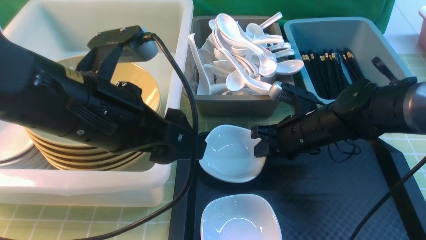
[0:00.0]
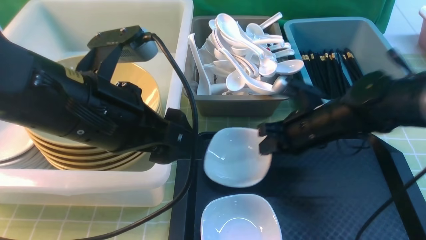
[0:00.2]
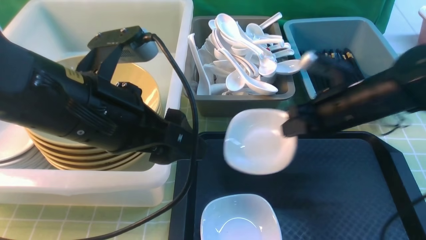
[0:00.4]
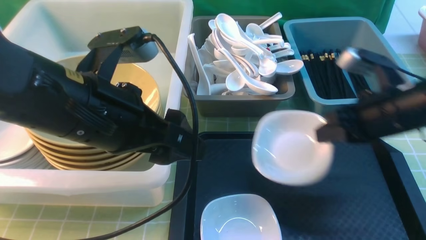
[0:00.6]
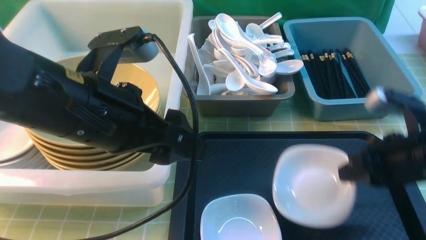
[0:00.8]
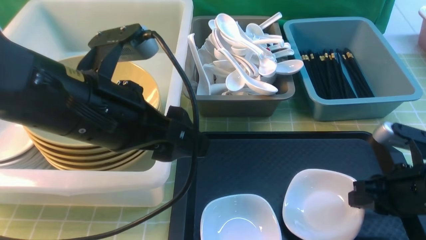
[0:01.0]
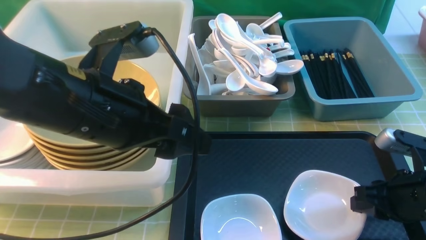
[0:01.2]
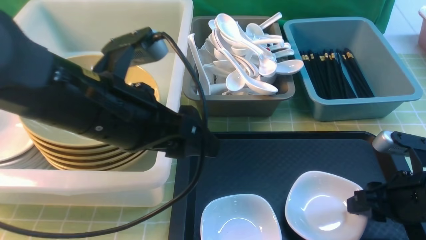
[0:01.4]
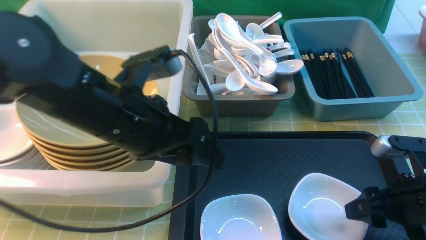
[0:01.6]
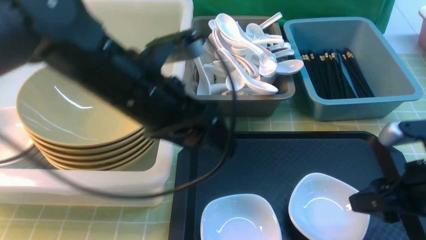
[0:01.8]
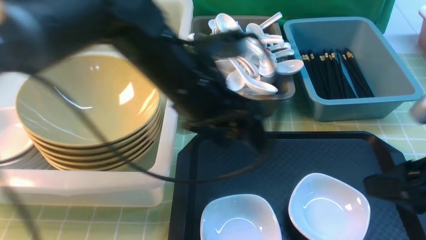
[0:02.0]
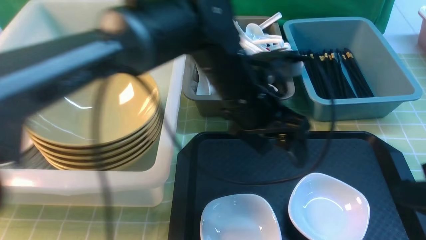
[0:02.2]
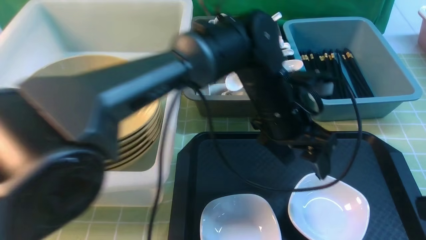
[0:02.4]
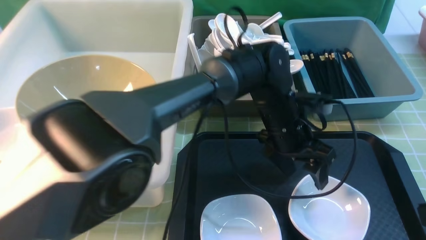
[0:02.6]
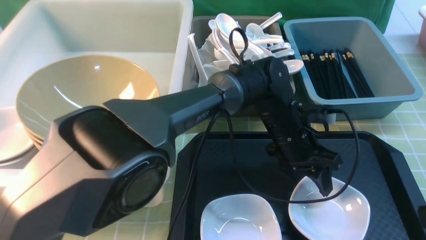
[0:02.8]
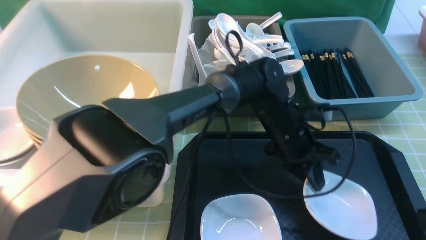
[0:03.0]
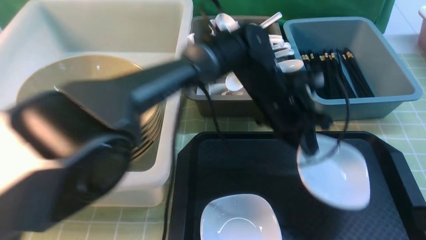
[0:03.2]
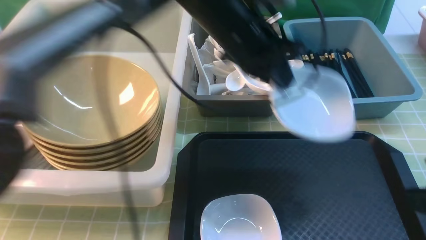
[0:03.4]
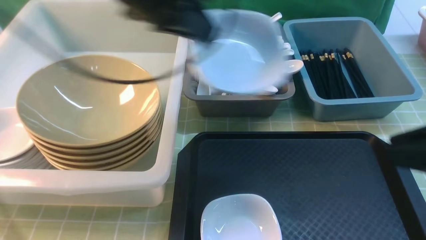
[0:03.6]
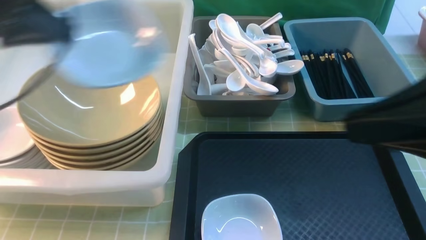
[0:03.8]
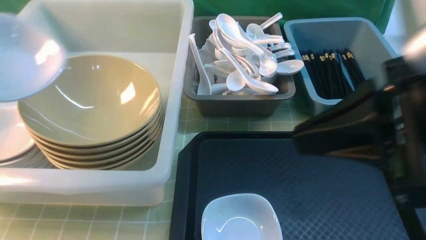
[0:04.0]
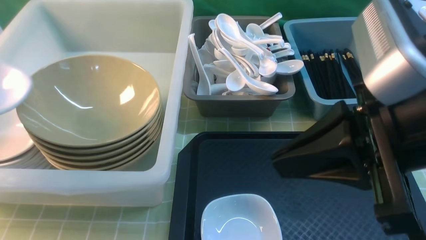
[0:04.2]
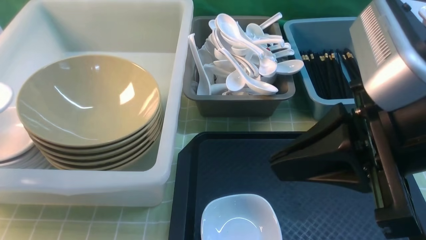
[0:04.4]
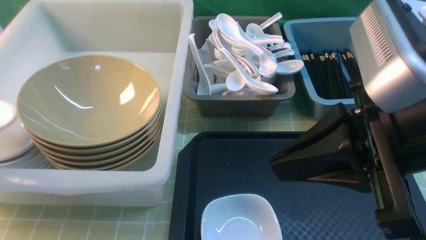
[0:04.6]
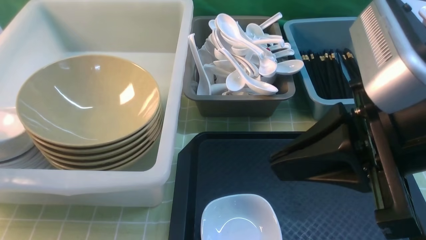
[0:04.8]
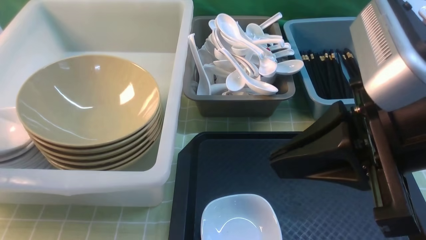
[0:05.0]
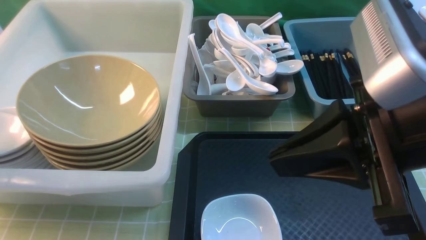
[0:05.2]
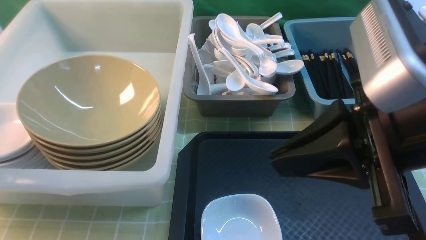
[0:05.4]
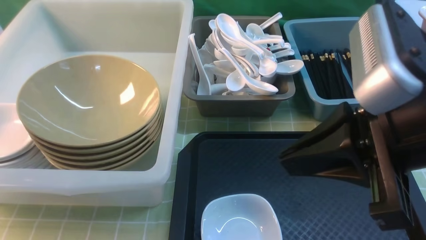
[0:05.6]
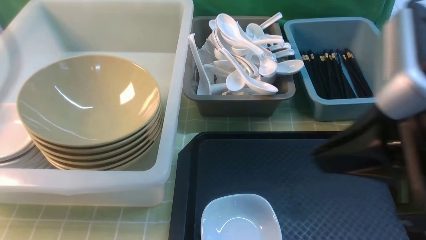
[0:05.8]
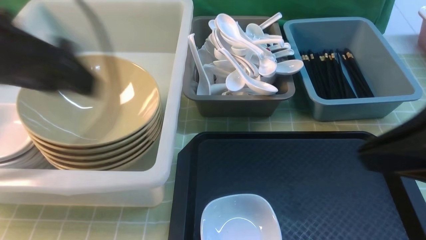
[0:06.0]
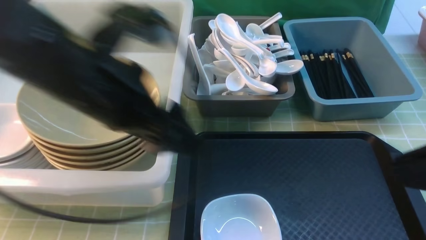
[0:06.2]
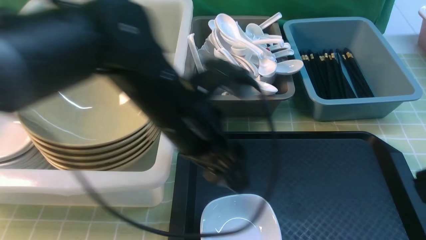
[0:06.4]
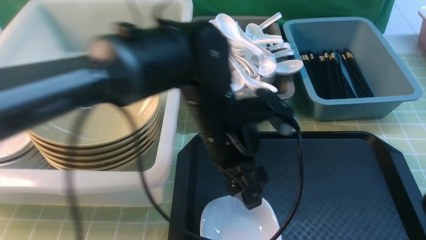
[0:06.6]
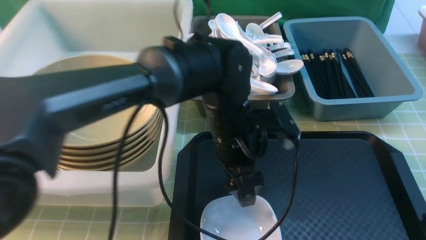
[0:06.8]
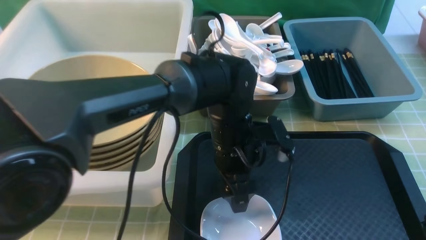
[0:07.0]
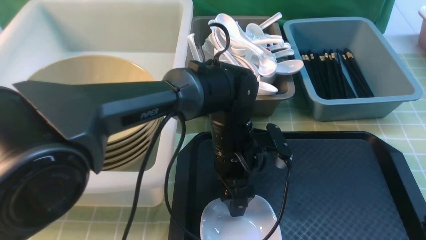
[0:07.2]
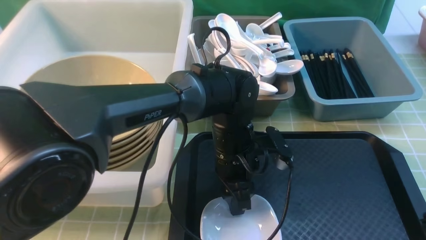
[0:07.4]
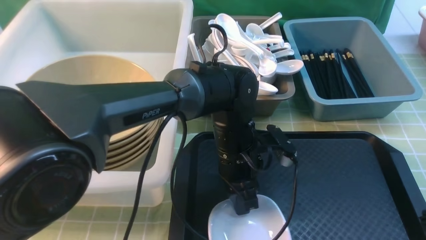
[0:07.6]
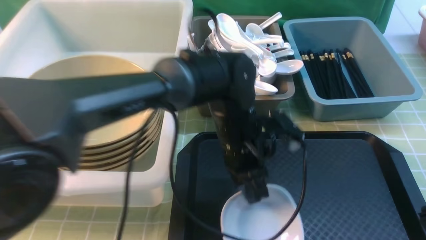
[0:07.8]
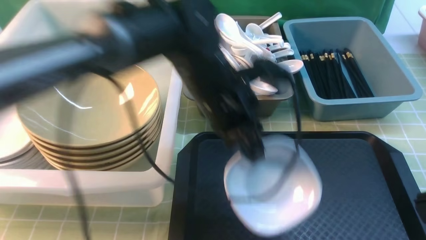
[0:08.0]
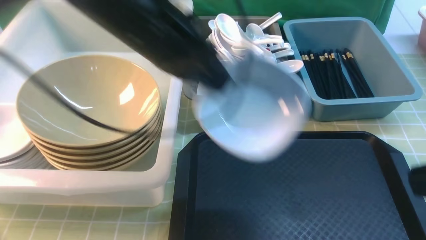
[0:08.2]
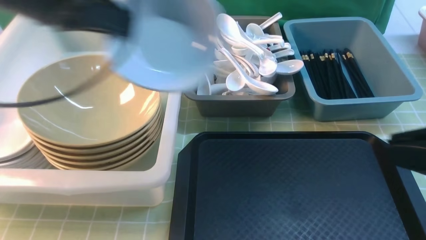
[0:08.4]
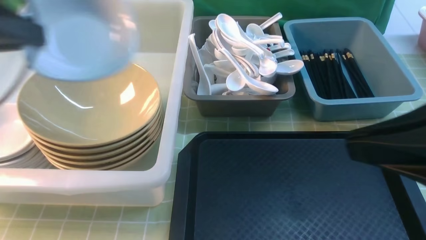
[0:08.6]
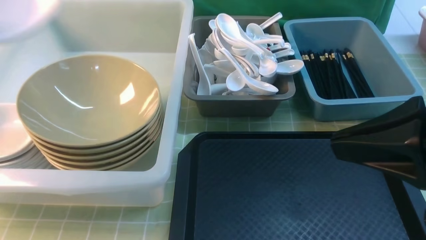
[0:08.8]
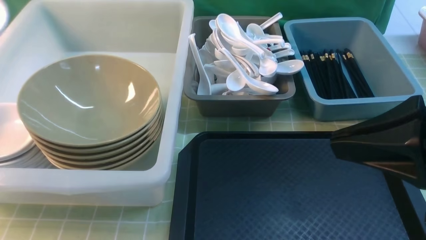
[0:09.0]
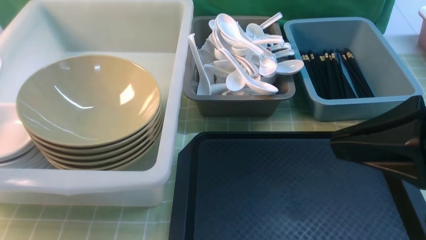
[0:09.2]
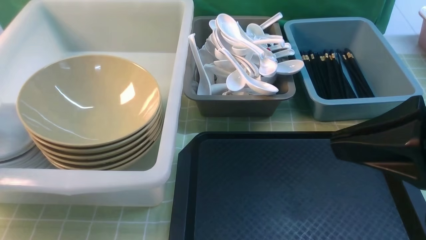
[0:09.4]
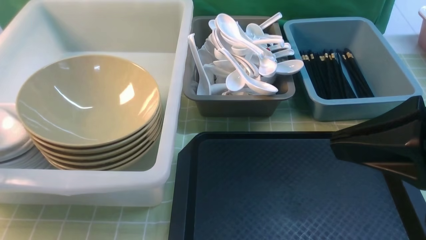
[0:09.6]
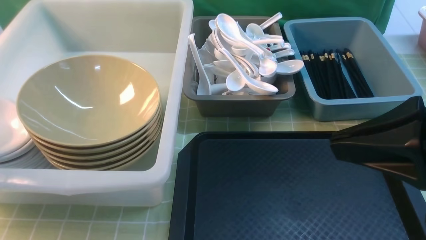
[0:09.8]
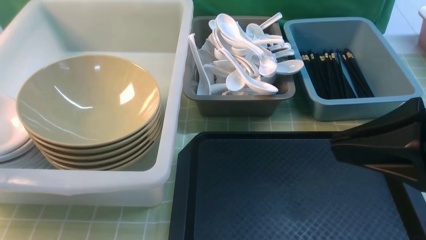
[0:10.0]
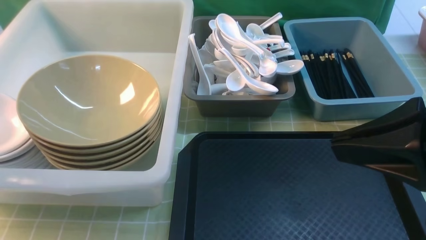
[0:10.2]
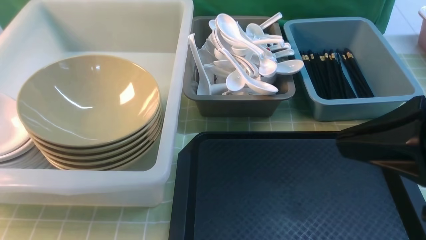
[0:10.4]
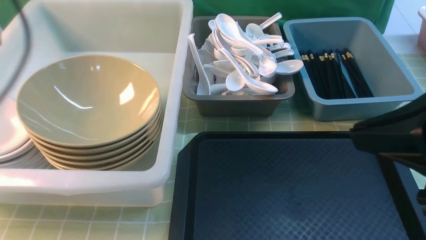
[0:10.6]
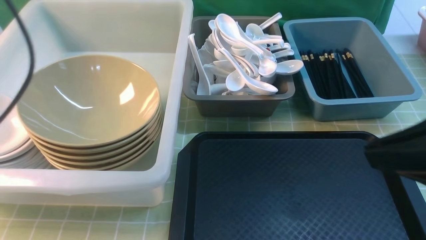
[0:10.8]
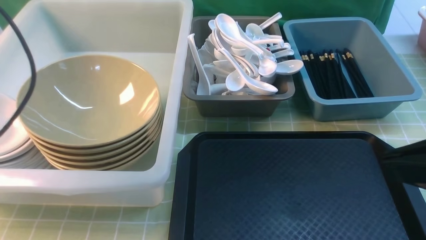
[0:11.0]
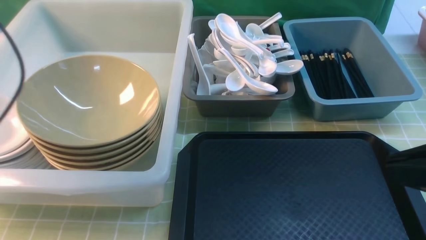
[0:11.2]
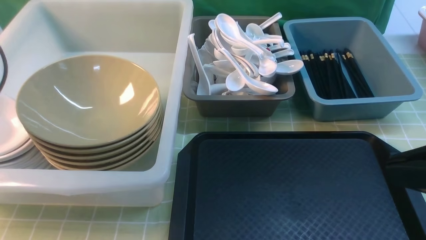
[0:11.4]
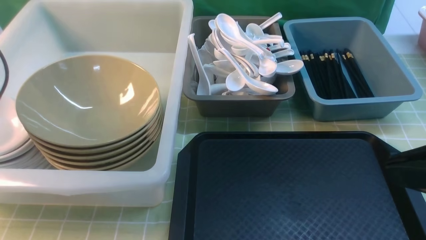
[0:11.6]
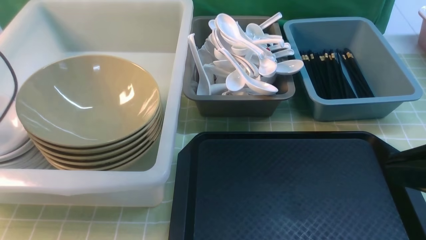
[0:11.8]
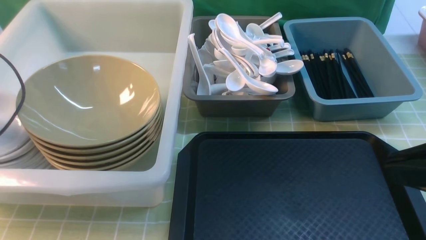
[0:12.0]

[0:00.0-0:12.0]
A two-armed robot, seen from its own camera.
Task of the whole recording: on green table put chopsticks spoon bowls plates into blue grey white boxes.
Step, 0:00.4 to 0:02.0: use the right arm to put the plate on the tray.
Step, 0:02.2 to 0:03.4: use the left arm to grab the plate.
Step, 0:03.8 to 0:05.6: use the left arm to put the plate into the large storage box on the left.
Step, 0:05.8 to 0:07.8: use the left arm to grab the plate.
Step, 0:08.0 to 0:10.6: use the left arm to put the plate into the large storage box on the left.
0:00.0 to 0:01.6: The right gripper shifts roughly 20 cm backward and to the right, and opens.
0:01.6 to 0:03.0: The left gripper moves to the right, downward and forward, roughly 25 cm, and closes, while the right gripper goes approximately 20 cm upward and backward.
0:03.0 to 0:04.4: The right gripper travels to the left, forward and upward by about 15 cm, and closes; the left gripper heads to the left, covering approximately 50 cm.
0:04.4 to 0:06.0: The left gripper moves to the right, roughly 20 cm, and opens up. Meanwhile the right gripper ends up roughly 5 cm from where it was.
0:06.0 to 0:07.6: The right gripper ends up approximately 5 cm from where it was. Meanwhile the left gripper goes roughly 30 cm to the right and downward, and closes.
0:07.6 to 0:09.0: The left gripper heads to the left and upward, covering roughly 50 cm, while the right gripper is displaced forward by approximately 5 cm.
0:09.0 to 0:10.4: The left gripper is displaced to the right by roughly 5 cm, moves approximately 5 cm downward and comes back, and opens.
0:10.4 to 0:12.0: The left gripper travels downward, forward and to the left by approximately 15 cm, and closes.

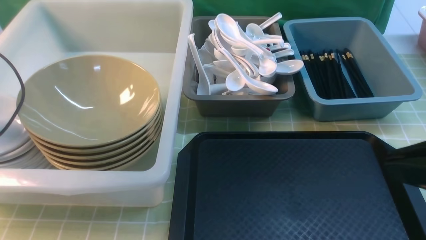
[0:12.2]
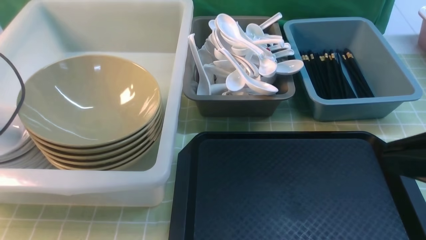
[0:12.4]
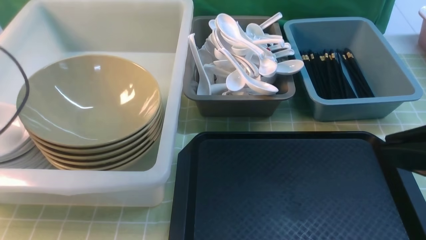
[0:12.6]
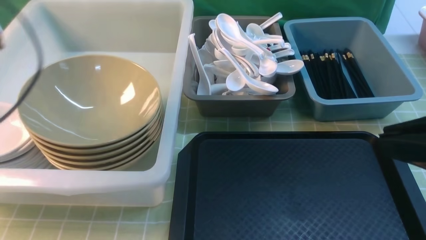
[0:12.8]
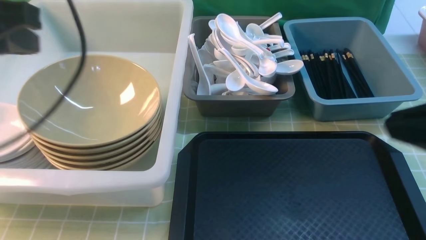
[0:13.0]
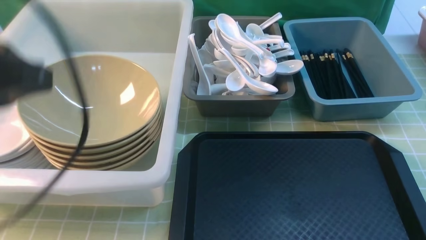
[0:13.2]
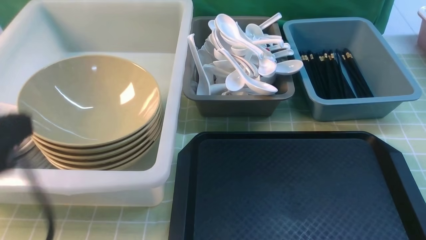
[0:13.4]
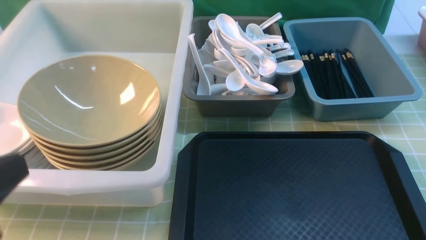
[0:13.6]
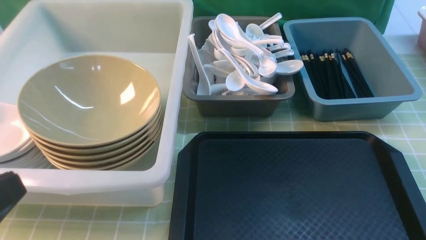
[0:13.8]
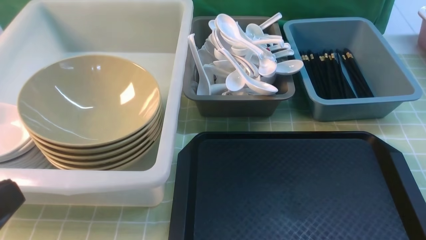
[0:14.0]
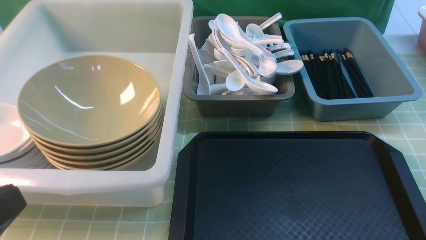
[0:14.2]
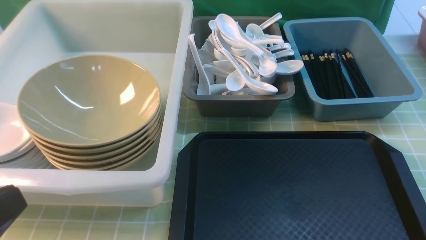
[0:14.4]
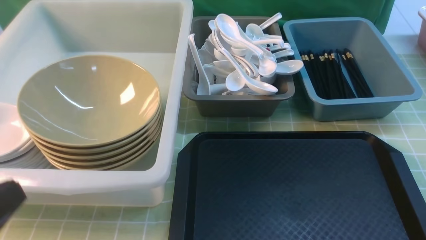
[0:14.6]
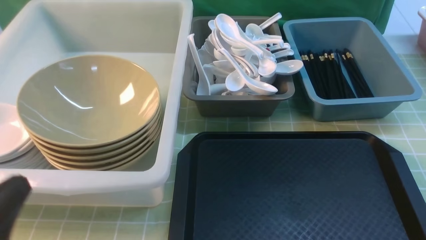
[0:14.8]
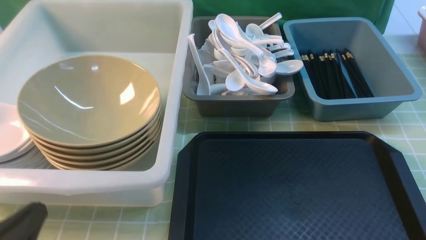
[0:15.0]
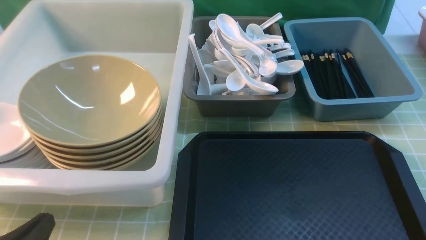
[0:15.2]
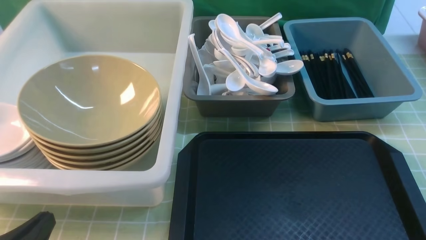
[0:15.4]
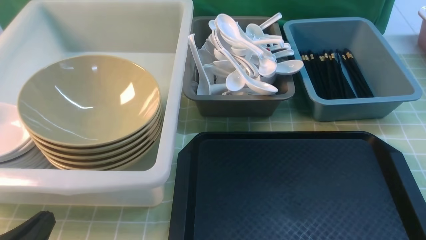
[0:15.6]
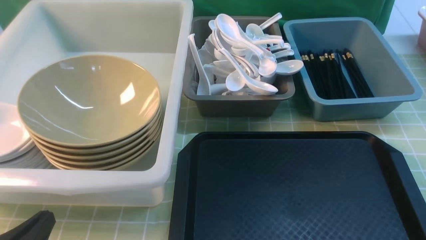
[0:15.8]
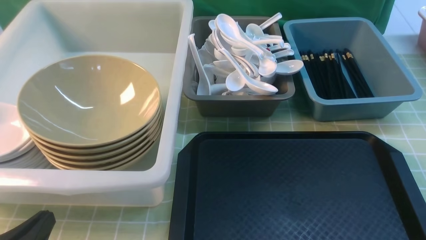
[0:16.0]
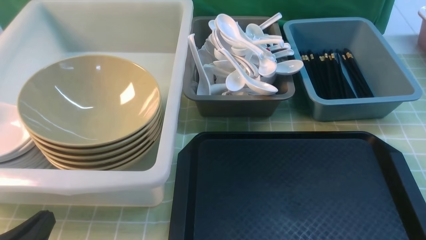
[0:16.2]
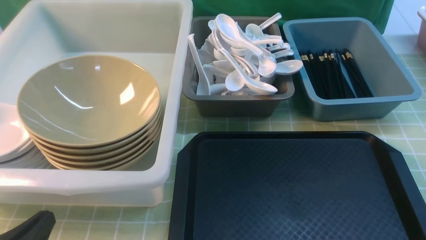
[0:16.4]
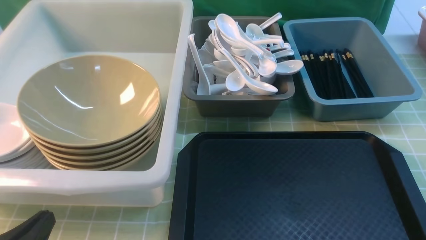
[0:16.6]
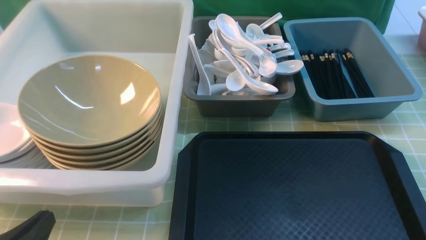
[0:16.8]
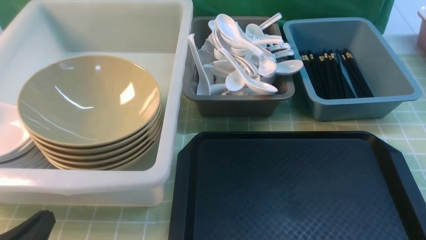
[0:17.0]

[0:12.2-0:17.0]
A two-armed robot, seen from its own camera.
Task of the whole recording: on green table put chopsticks spoon bowls plates into blue grey white boxes.
0:12.2 to 0:13.8: The left gripper travels backward and to the right by some 35 cm. Meanwhile the right gripper heads downward, to the right and backward, covering about 15 cm.
0:13.8 to 0:15.4: The left gripper moves downward, some 15 cm.
